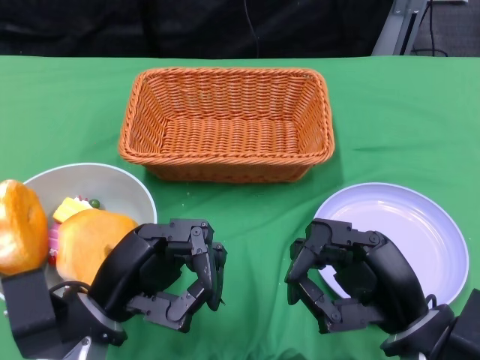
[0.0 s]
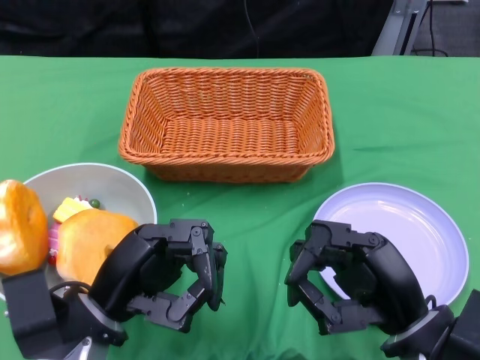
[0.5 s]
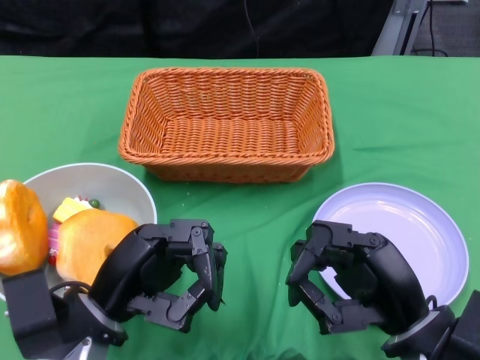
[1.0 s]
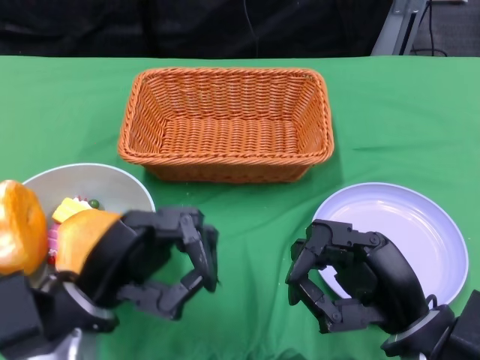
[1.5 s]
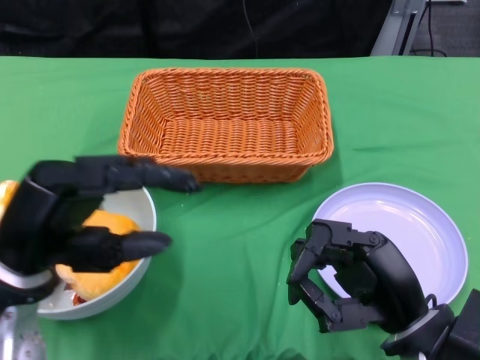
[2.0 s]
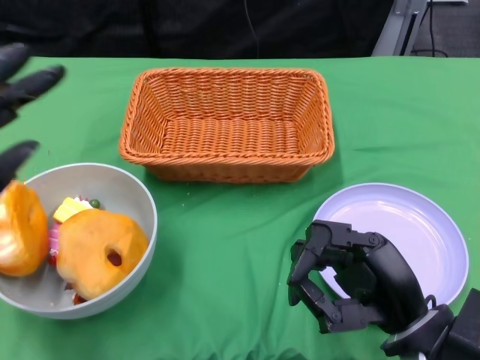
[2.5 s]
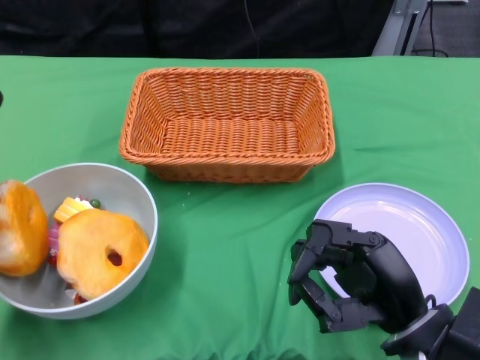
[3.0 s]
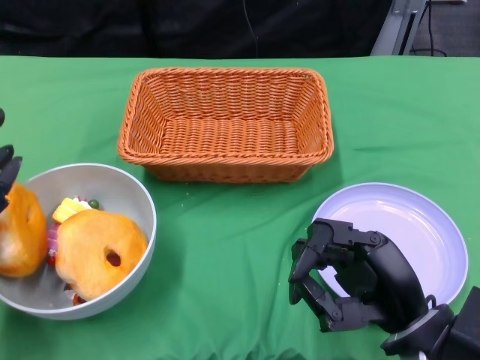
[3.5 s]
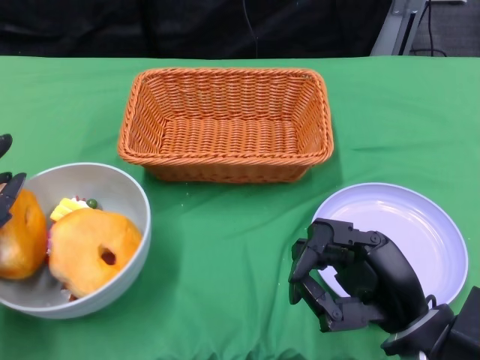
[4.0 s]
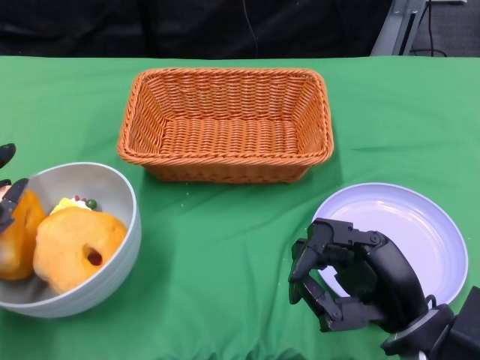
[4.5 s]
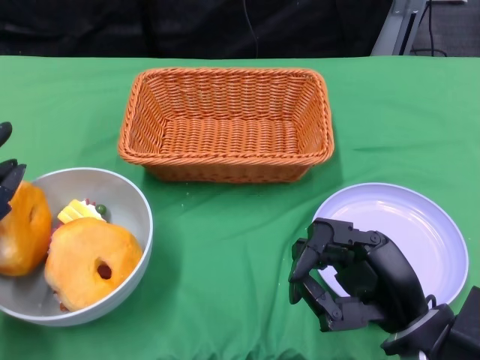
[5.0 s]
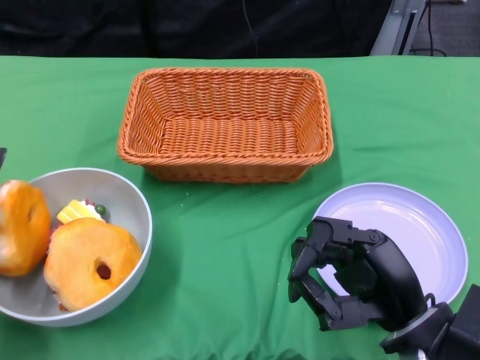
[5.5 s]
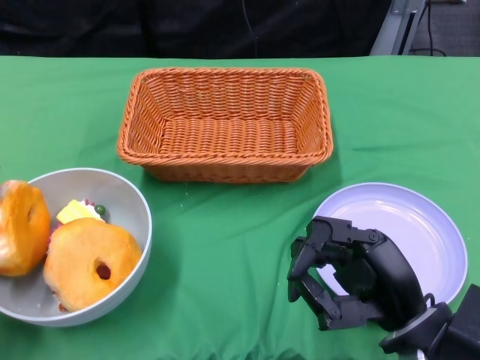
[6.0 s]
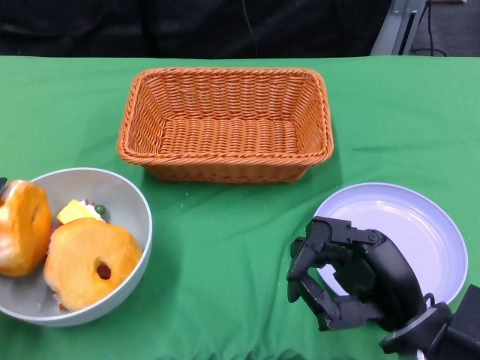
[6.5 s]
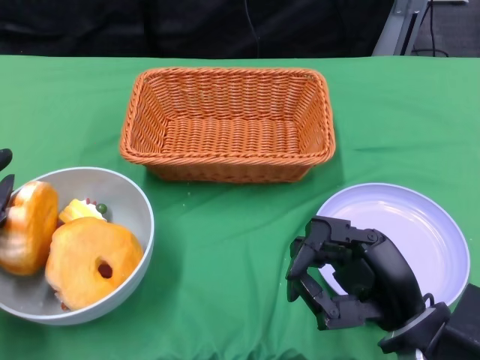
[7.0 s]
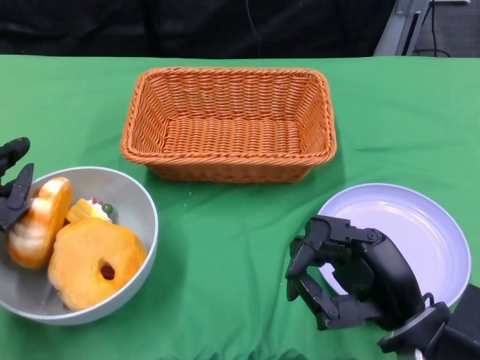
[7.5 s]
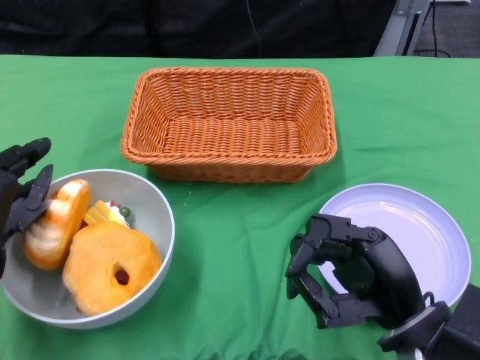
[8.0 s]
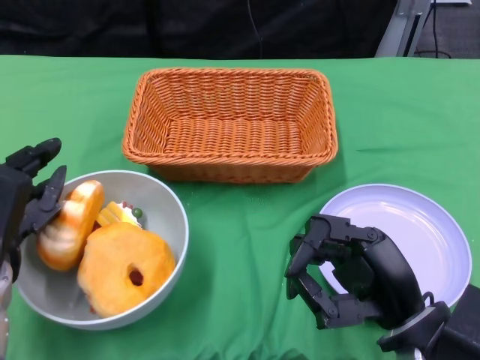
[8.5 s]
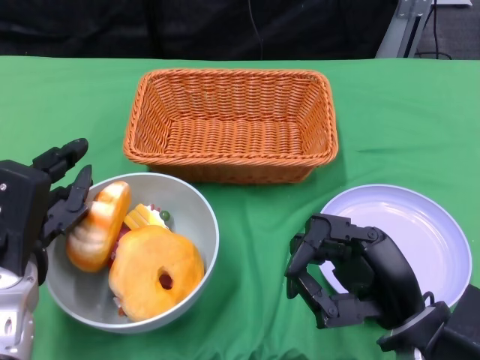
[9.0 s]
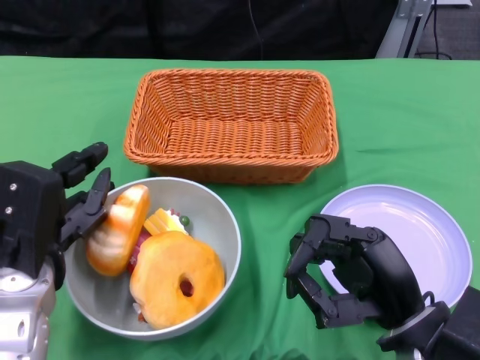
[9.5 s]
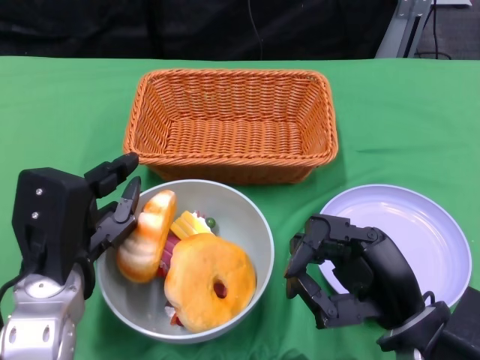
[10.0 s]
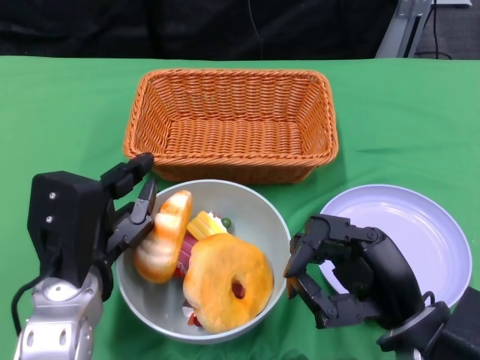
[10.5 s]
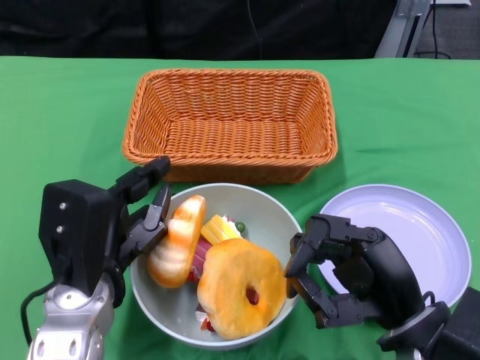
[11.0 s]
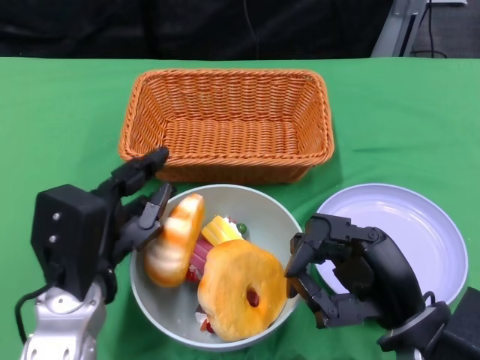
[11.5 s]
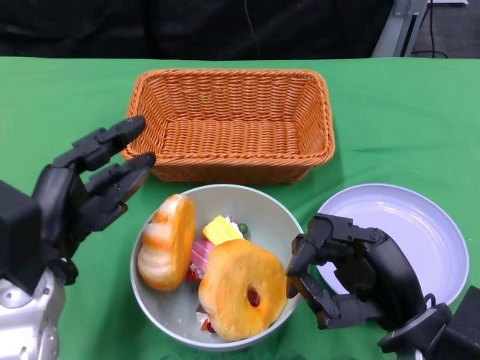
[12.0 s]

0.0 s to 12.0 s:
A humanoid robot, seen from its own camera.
Step, 0.0 to 11.5 s: Push the bowl to the center of the table using the left gripper.
2.0 to 4.0 s: The left hand travels to the left and downward by some 10 cm.
4.0 to 6.0 s: The hands make only small movements.
8.0 to 10.0 s: The left hand heads to the right, covering about 10 cm.

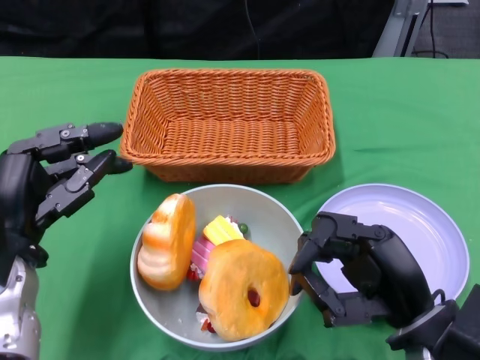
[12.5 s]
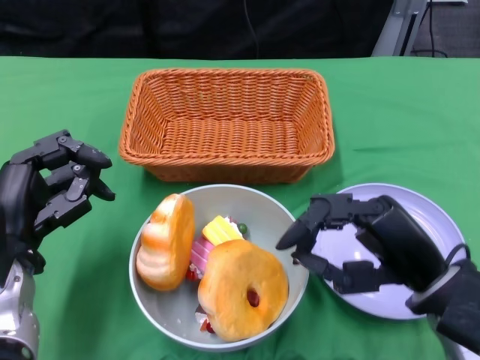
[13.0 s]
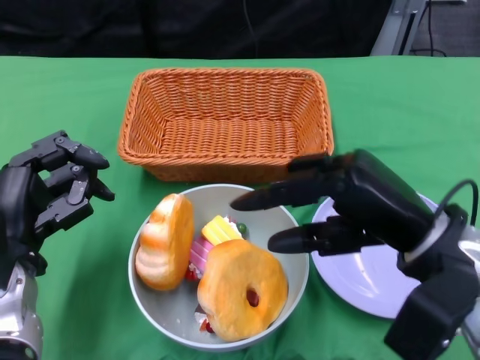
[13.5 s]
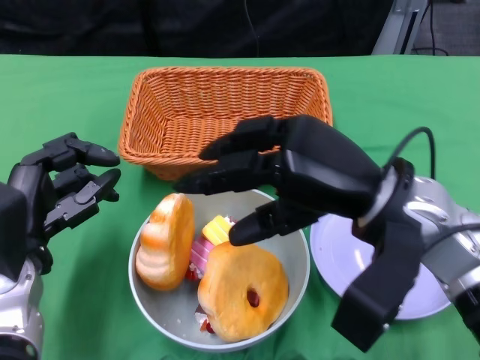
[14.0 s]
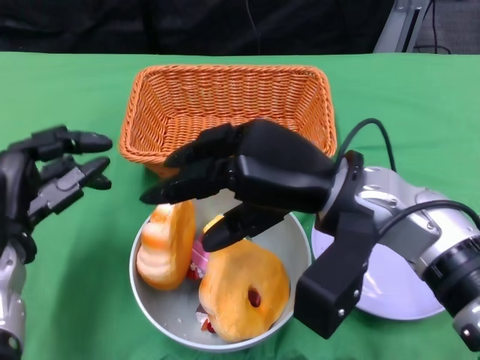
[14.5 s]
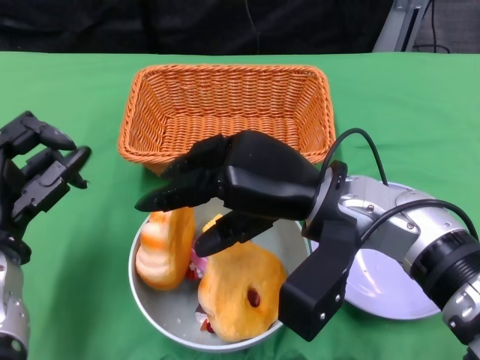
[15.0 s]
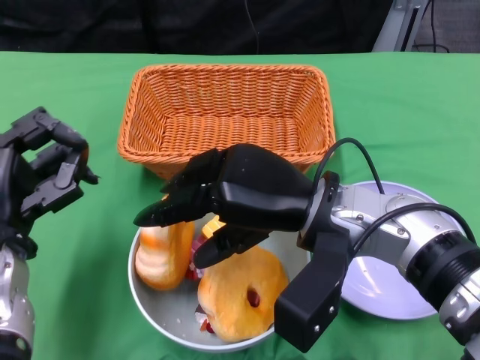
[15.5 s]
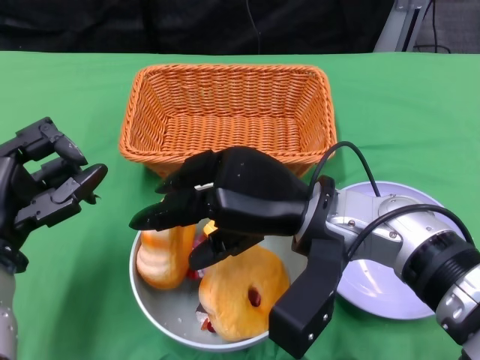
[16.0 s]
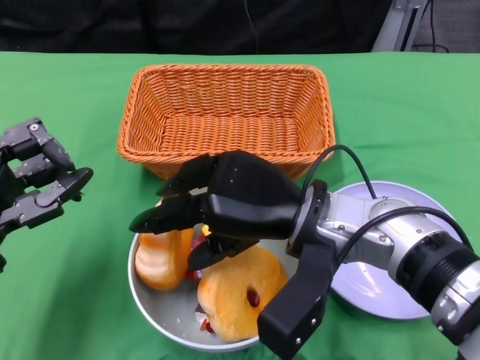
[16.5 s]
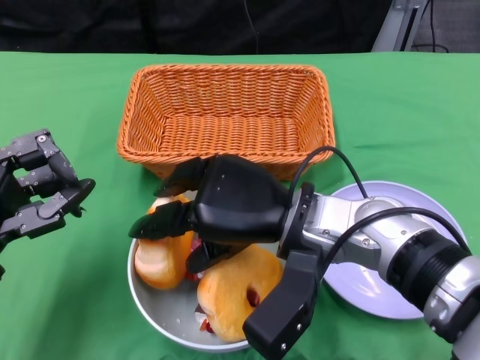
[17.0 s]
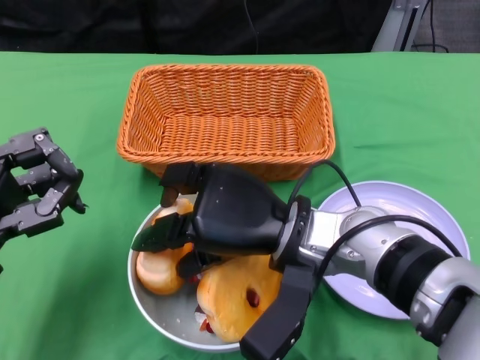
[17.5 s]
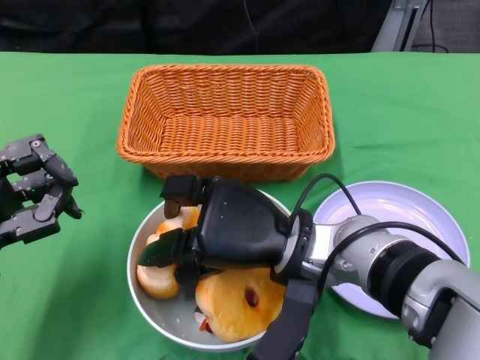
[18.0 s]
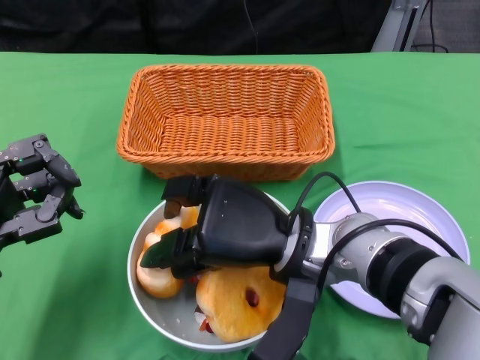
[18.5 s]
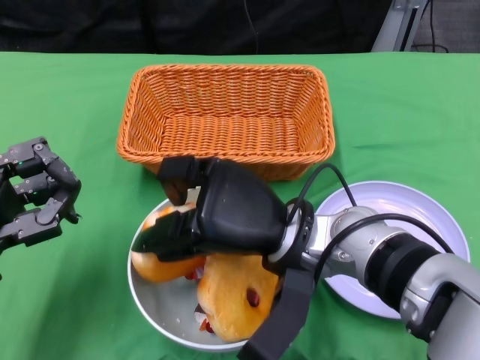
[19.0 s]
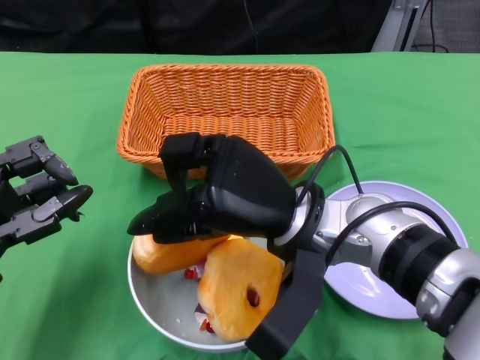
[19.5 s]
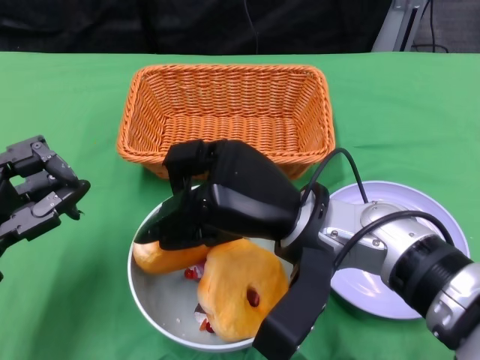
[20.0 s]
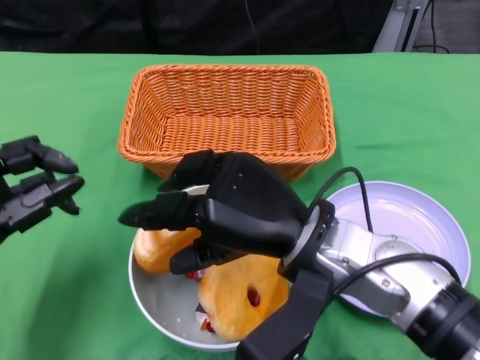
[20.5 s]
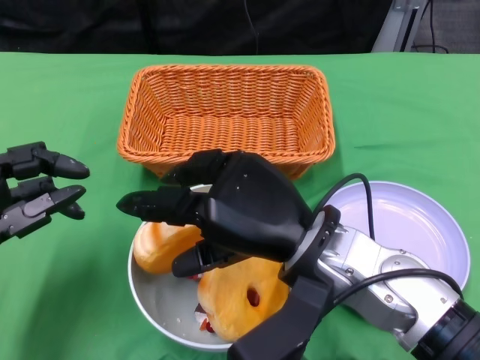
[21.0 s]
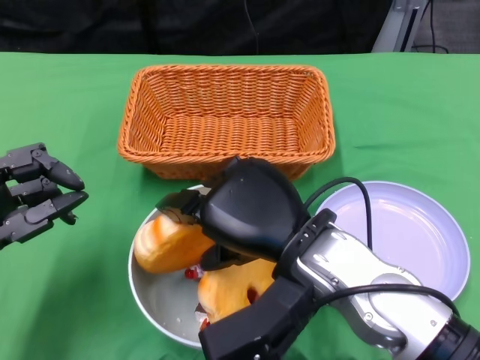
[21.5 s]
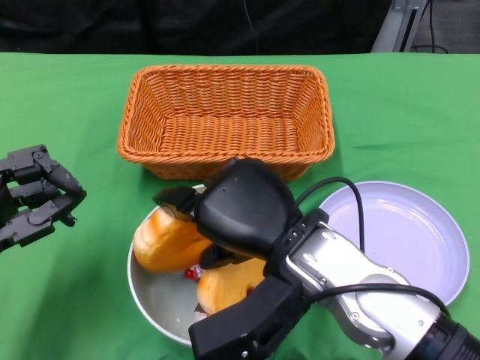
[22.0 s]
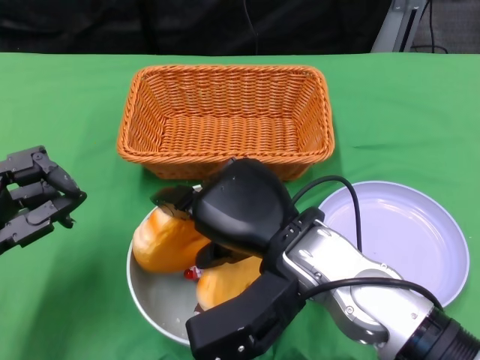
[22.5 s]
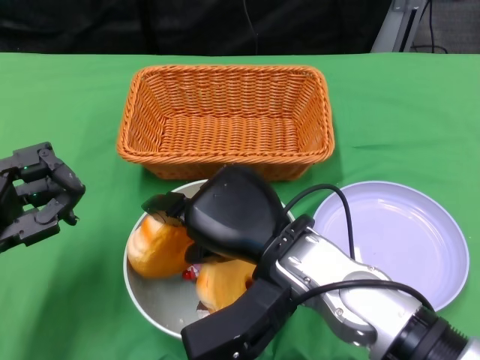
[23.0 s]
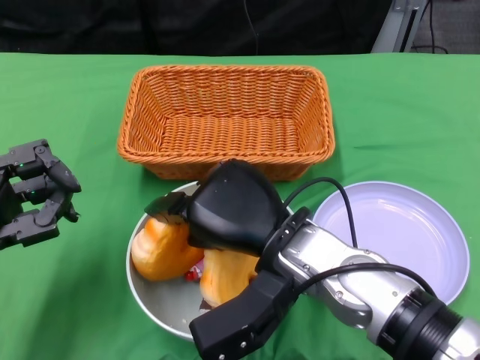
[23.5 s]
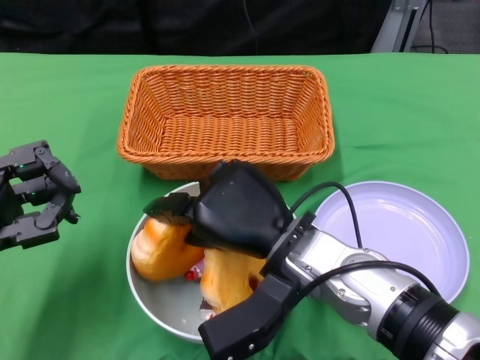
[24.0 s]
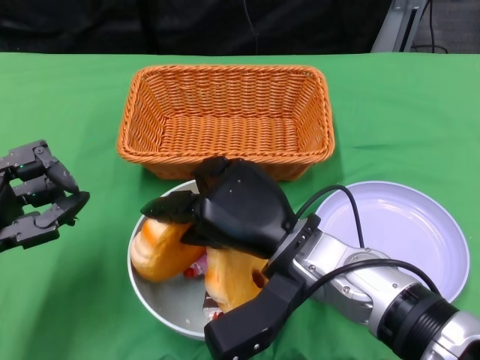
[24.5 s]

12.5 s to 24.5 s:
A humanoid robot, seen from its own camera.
12.5 to 14.5 s: The right hand is displaced upward, forward and to the left by approximately 15 cm.
18.5 to 20.5 s: The right hand moves upward, roughly 5 cm.

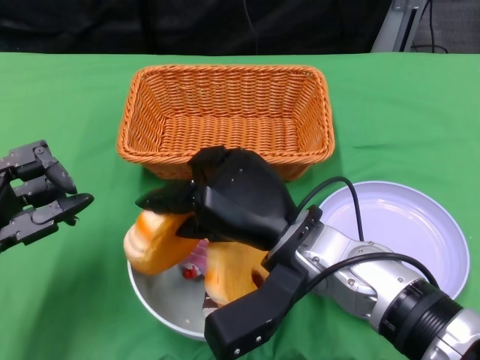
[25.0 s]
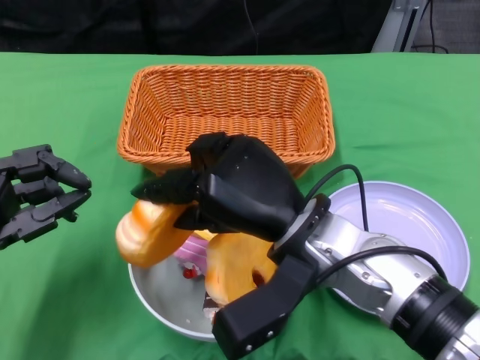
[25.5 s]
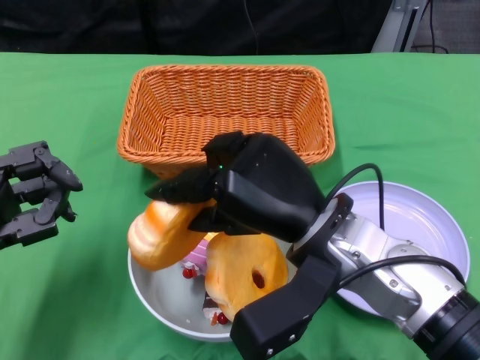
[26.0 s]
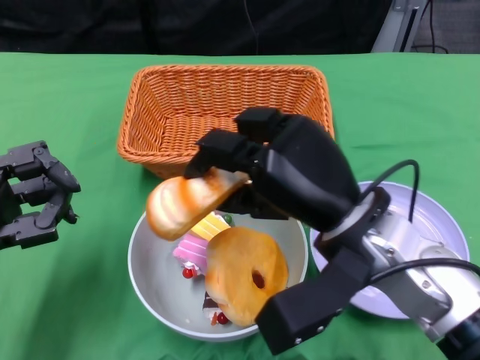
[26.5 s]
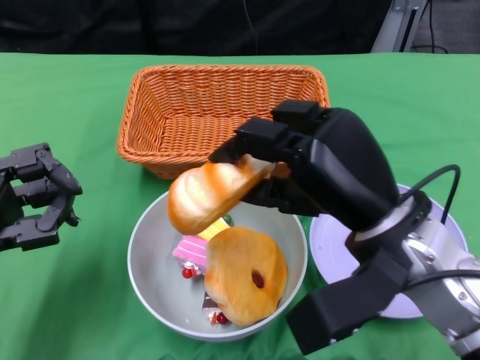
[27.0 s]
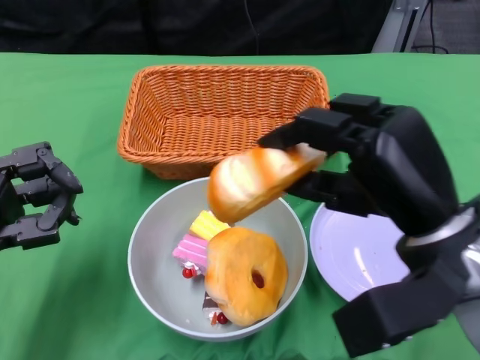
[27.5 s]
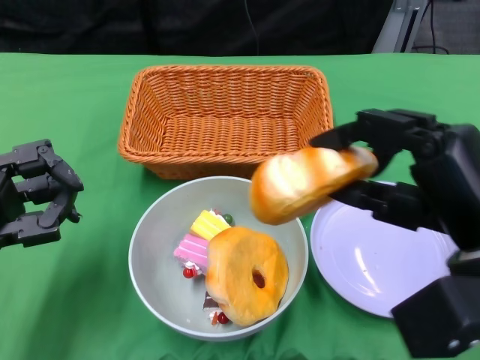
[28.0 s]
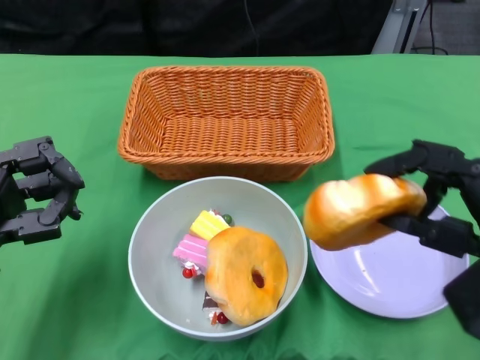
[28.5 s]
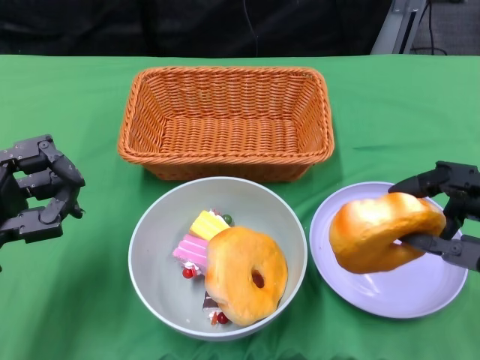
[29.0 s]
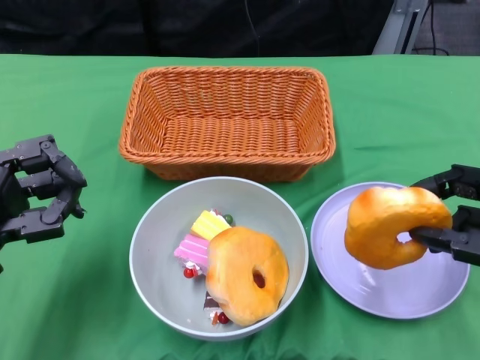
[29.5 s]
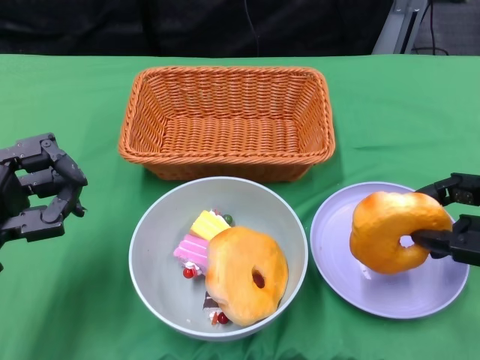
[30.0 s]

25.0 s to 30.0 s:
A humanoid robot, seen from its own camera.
25.0 to 27.5 s: The right hand moves to the right and upward, approximately 15 cm.
27.5 to 30.0 s: The right hand shifts about 10 cm to the right and downward.
